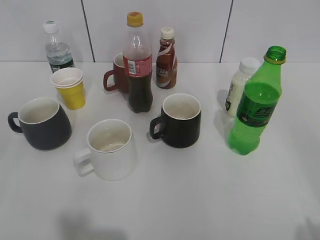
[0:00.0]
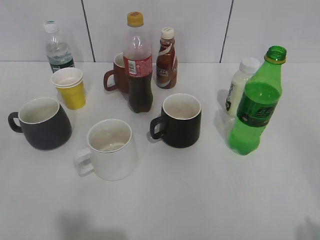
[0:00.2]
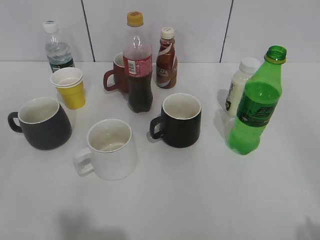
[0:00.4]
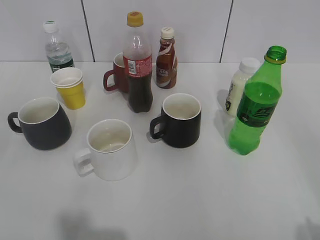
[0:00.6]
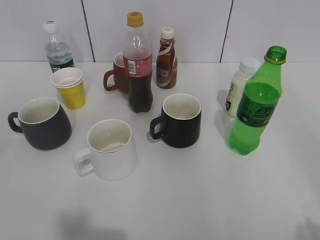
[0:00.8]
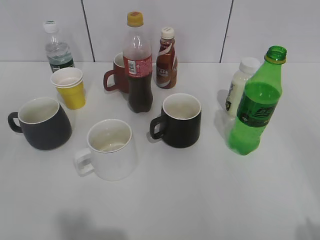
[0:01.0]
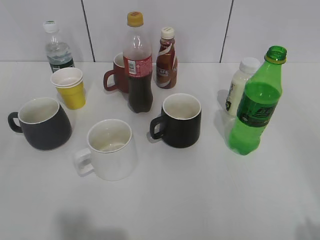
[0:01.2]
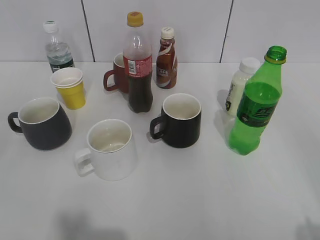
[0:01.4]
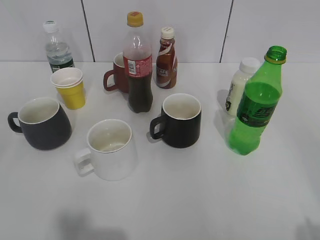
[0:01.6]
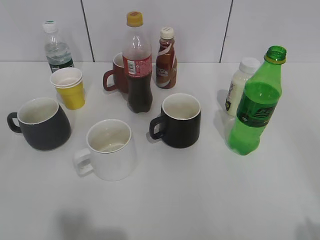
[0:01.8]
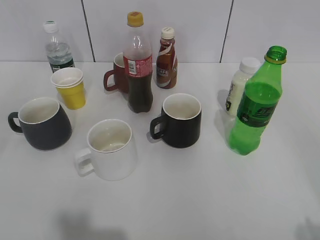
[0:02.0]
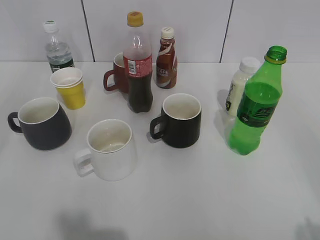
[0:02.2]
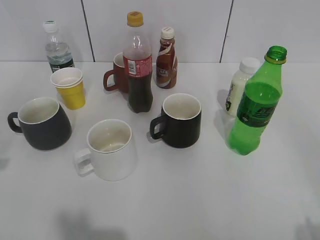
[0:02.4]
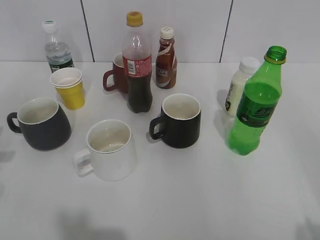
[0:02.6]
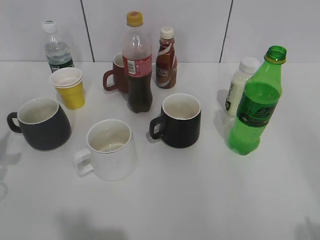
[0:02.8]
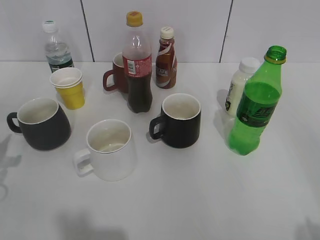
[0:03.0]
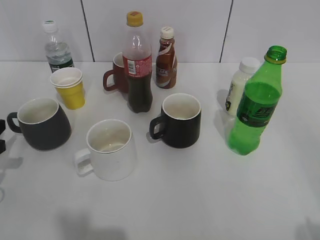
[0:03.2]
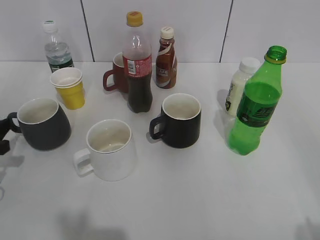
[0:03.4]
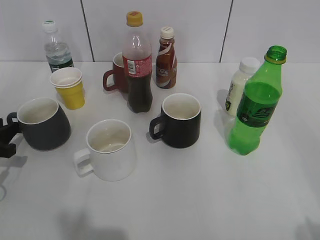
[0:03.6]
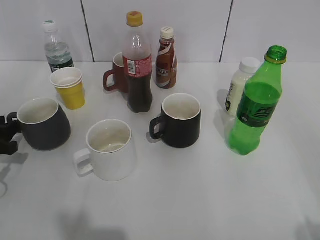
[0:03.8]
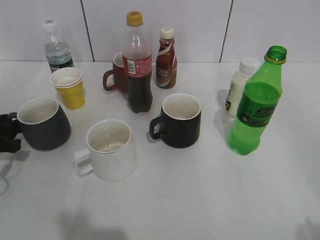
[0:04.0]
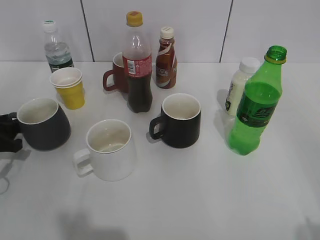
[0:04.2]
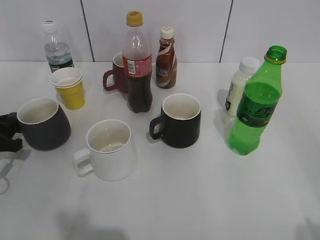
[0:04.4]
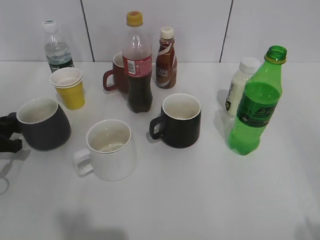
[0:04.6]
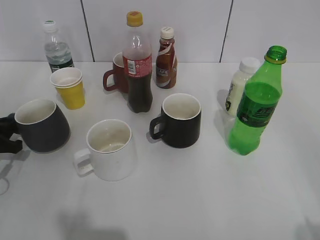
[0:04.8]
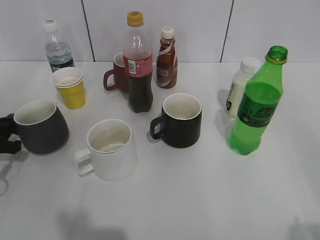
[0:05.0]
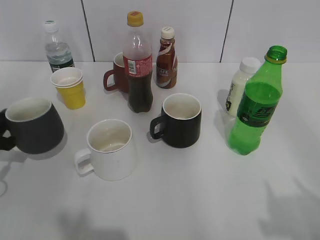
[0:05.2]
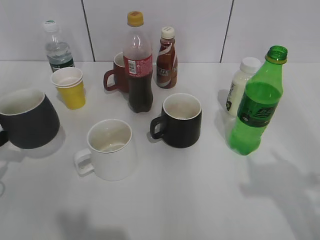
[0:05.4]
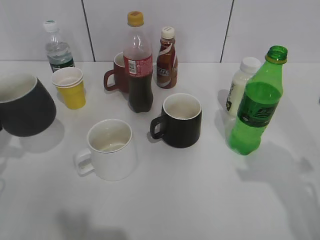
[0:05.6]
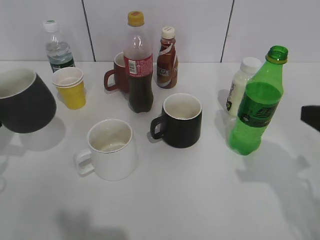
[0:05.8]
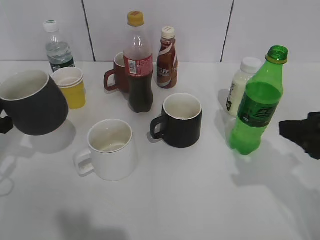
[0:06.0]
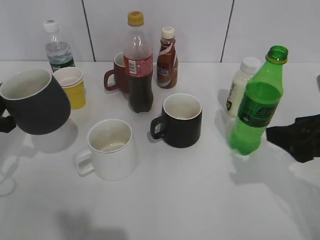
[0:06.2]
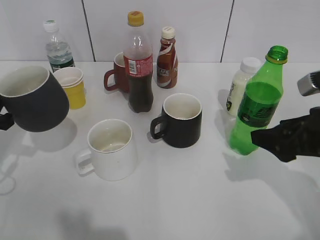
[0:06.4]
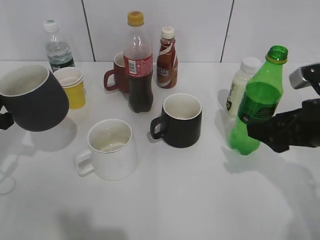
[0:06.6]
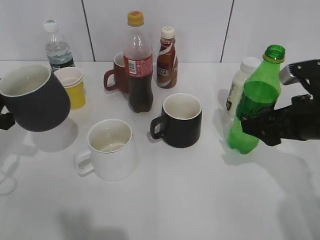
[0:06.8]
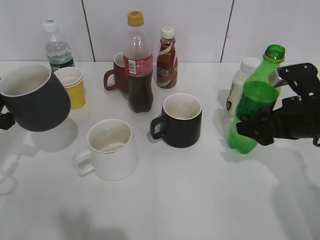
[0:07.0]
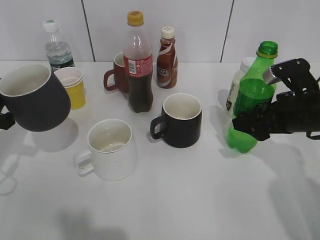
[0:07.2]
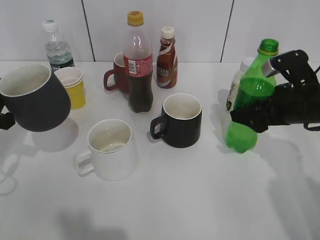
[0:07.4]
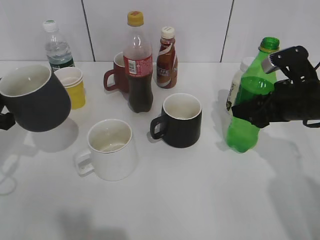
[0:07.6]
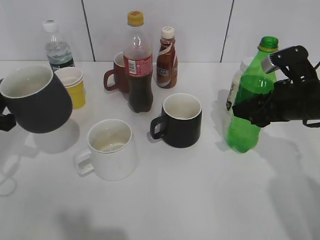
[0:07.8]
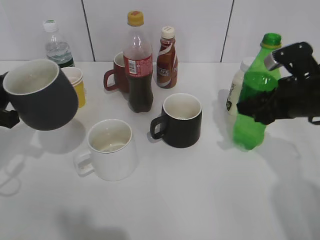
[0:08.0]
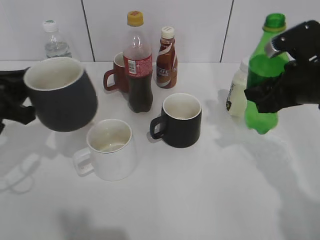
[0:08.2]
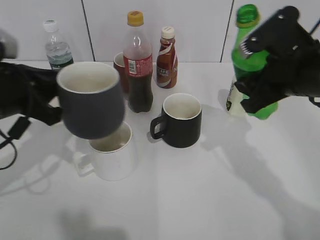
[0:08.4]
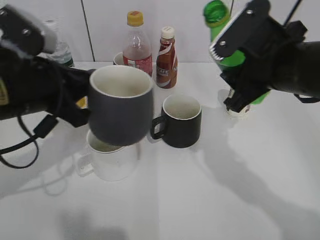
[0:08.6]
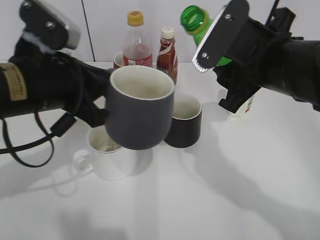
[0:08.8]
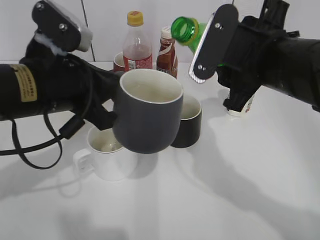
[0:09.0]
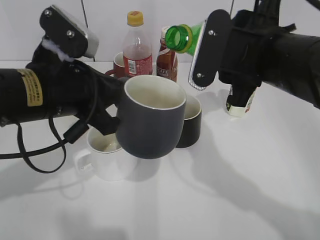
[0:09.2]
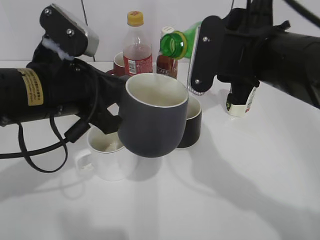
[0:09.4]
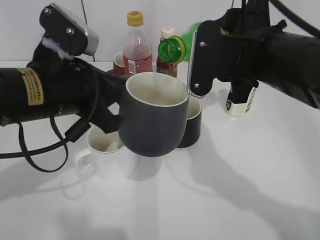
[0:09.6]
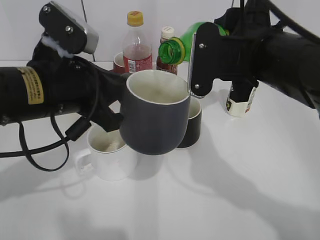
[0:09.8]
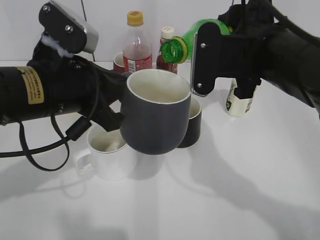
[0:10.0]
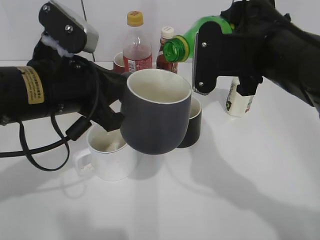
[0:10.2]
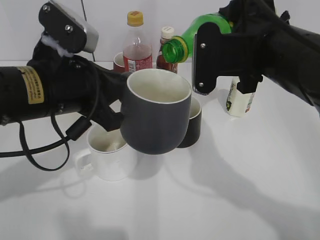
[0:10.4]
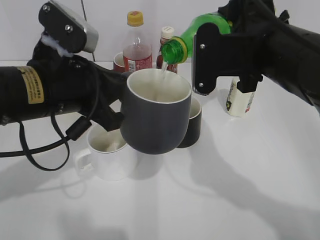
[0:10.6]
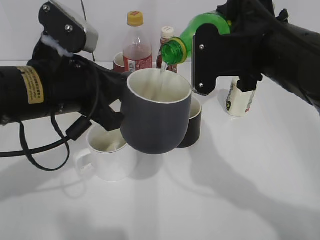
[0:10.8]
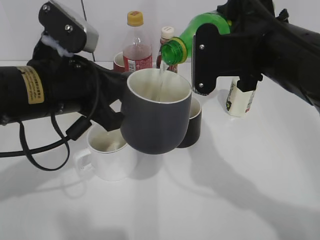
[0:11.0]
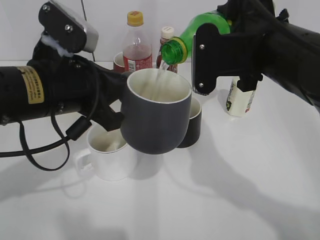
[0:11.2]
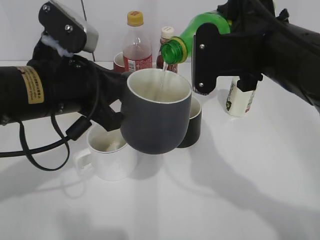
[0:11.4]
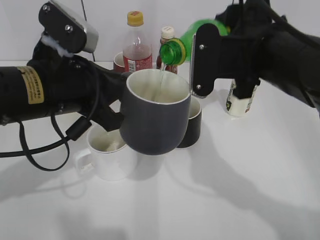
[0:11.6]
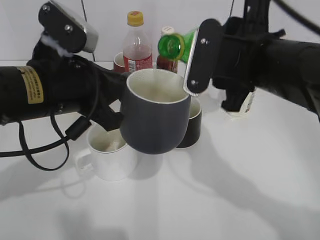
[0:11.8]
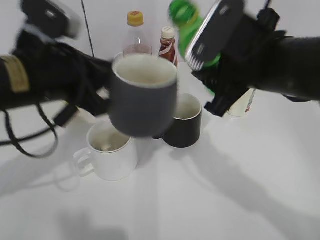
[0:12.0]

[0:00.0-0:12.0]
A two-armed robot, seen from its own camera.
Step, 0:05.0 to 0:05.4: Lift the grey cup with left gripper.
Step, 0:05.8 to 0:07.4: Grasp the bottle with sprite with right gripper.
Step, 0:07.6 to 0:11.8: Pour the sprite from bottle to cup with right gripper.
0:01.6 to 0:03.0: The left gripper goes about 30 cm forward and downward.
0:03.0 to 0:04.4: The left gripper moves downward and forward, some 10 cm.
0:04.4 to 0:06.0: The right gripper travels forward by approximately 20 cm, while the left gripper heads upward, covering about 10 cm, and closes.
0:06.0 to 0:07.6: The right gripper goes some 15 cm forward and downward, and opens and closes again.
0:07.6 to 0:09.0: The right gripper moves to the left, upward and backward, some 15 cm. Meanwhile the left gripper travels to the right and upward by about 20 cm.

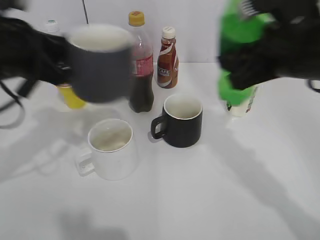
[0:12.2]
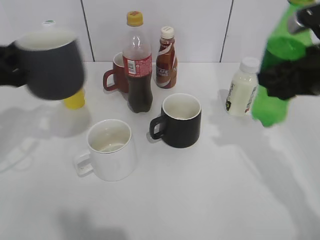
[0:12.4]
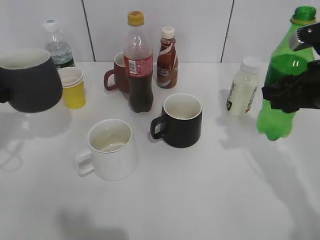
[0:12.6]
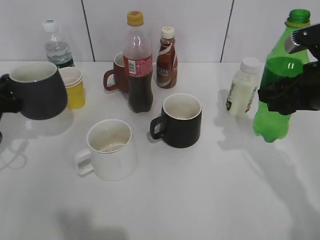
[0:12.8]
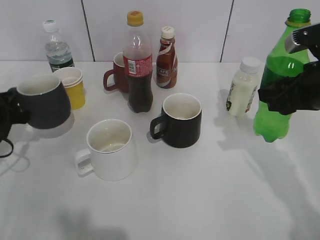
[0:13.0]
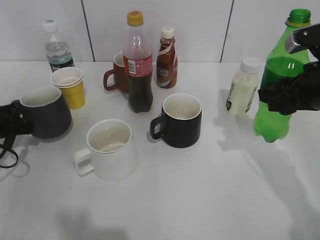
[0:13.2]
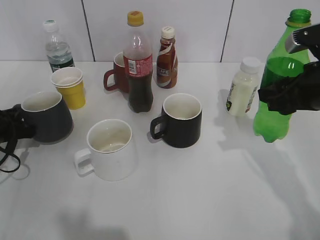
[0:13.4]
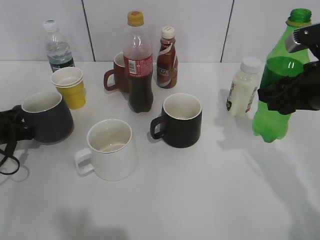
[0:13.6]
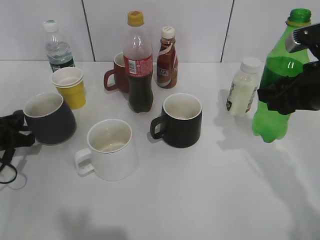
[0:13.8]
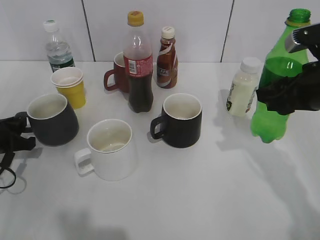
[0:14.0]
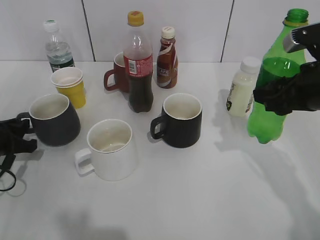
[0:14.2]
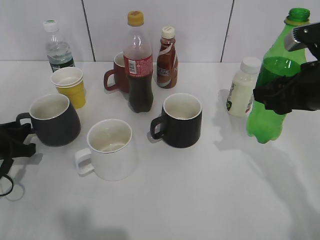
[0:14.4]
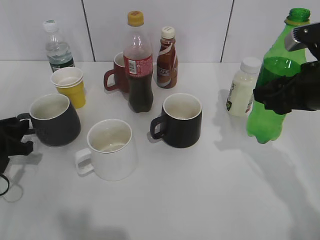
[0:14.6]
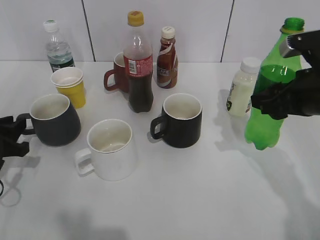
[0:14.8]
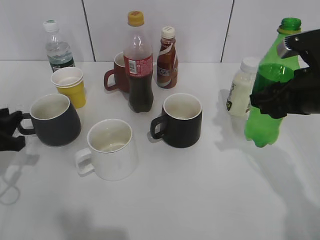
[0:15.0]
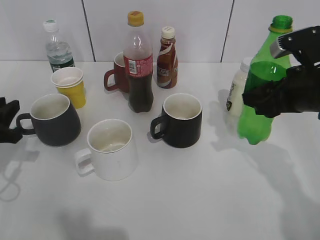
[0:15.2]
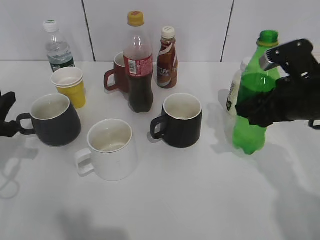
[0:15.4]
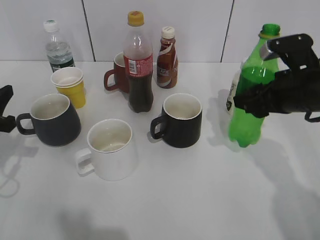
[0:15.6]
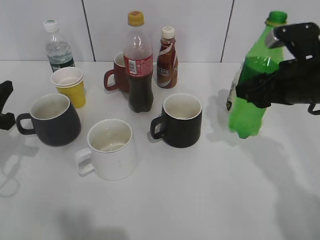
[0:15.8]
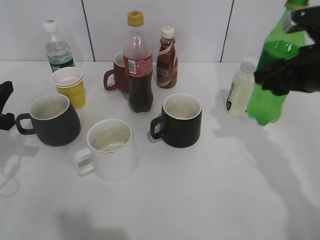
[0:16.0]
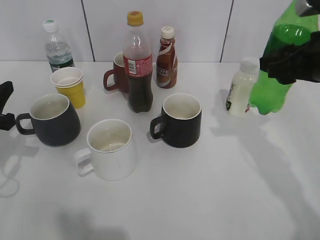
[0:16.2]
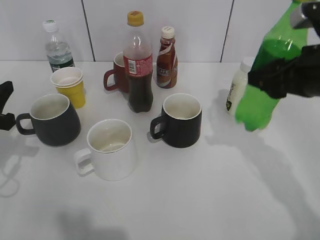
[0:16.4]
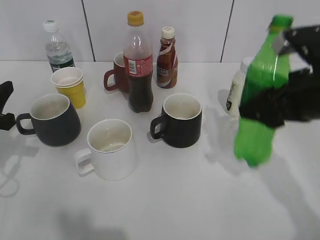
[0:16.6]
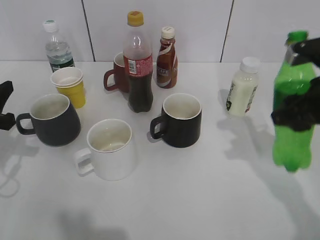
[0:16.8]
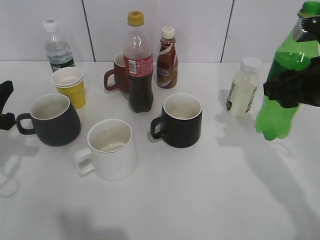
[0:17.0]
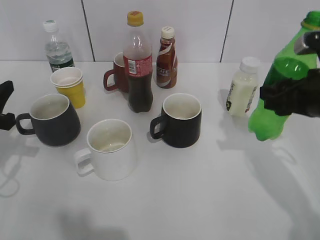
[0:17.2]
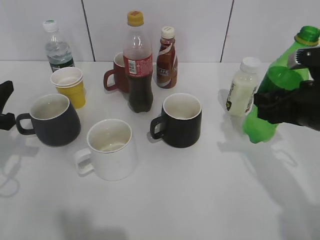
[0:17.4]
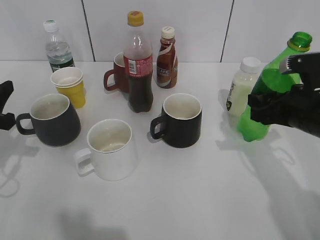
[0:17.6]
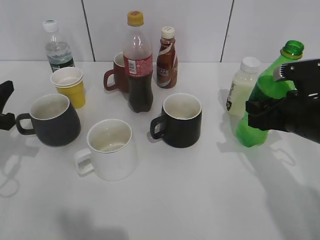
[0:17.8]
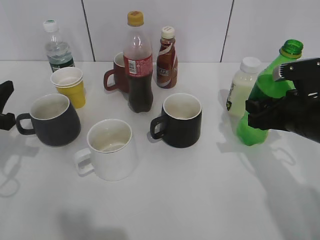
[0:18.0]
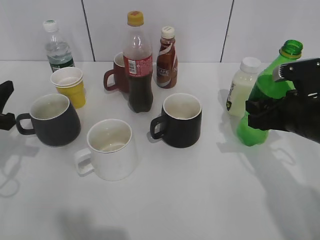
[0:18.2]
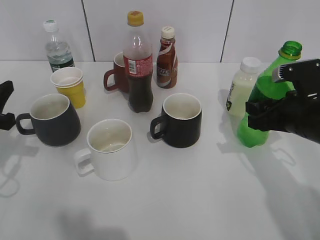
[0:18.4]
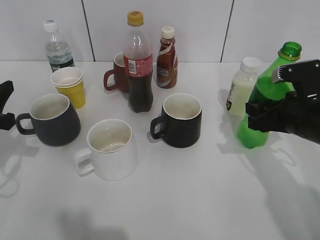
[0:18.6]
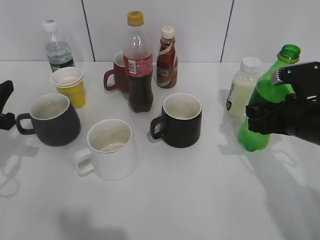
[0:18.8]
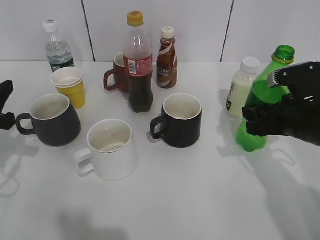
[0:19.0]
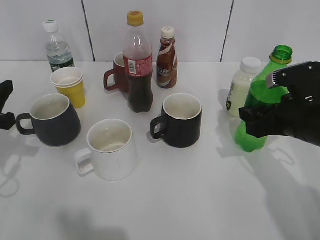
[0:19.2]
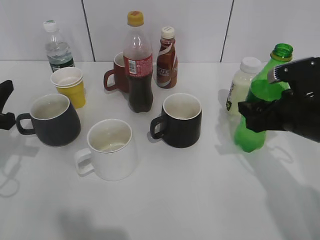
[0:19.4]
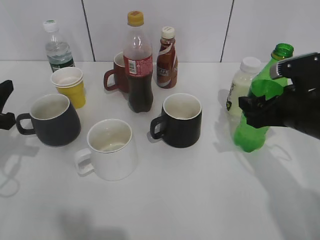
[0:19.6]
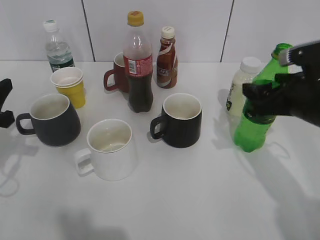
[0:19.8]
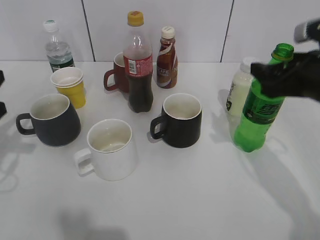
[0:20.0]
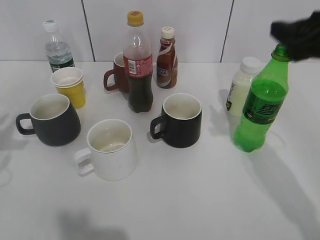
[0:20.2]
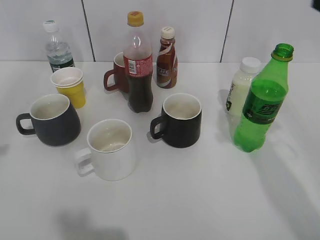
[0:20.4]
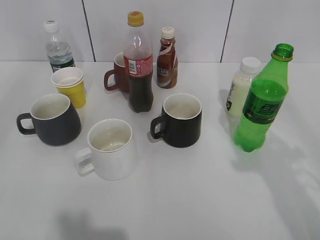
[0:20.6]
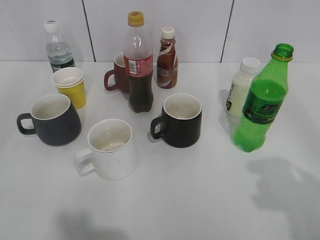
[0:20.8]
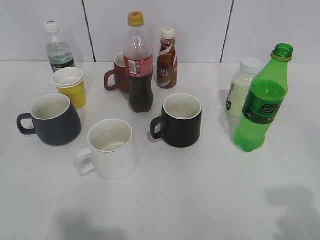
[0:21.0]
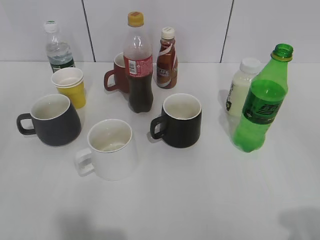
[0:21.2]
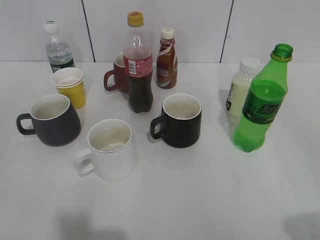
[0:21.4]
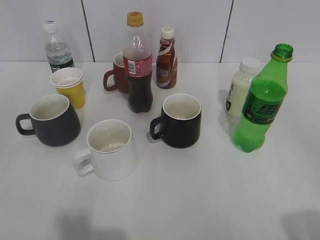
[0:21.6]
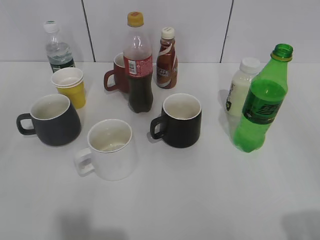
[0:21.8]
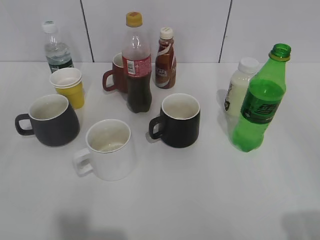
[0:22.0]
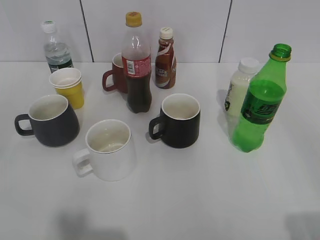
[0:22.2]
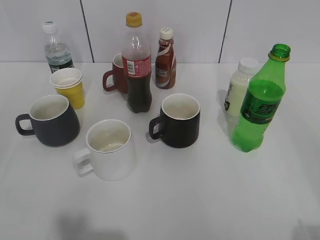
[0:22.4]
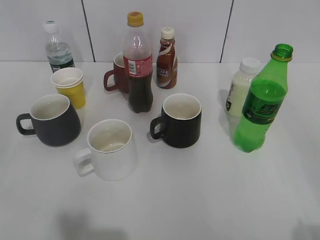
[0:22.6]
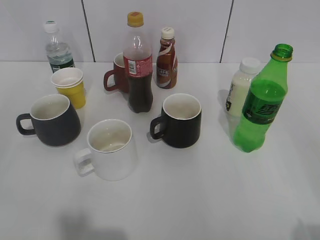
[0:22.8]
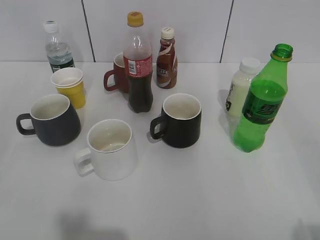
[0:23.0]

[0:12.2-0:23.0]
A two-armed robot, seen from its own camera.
Step, 0:12.2 to 0:14.2: Place the grey cup on the table with left gripper.
Step, 0:14.4 to 0:19.8: Place the sprite bottle on the table with right gripper.
0:12.2 to 0:13.8: The right gripper moves to the right and downward, roughly 10 cm; the left gripper moves downward and to the left, some 20 cm.
0:13.8 to 0:15.2: The left gripper is displaced upward by approximately 5 cm, and opens.
0:15.2 to 0:16.8: The grippers make only small movements.
0:16.8 to 0:18.4: The right gripper goes some 5 cm downward.
0:18.4 to 0:20.0: The right gripper moves upward, some 10 cm, and opens up.
0:20.0 to 0:21.4: The right gripper shifts about 25 cm backward.
